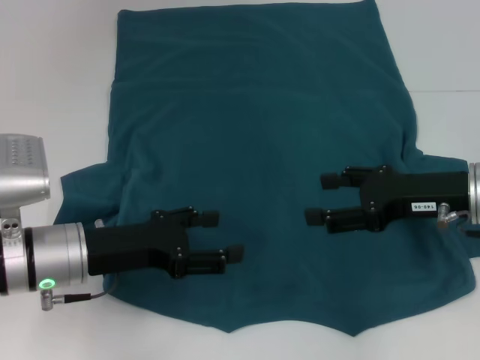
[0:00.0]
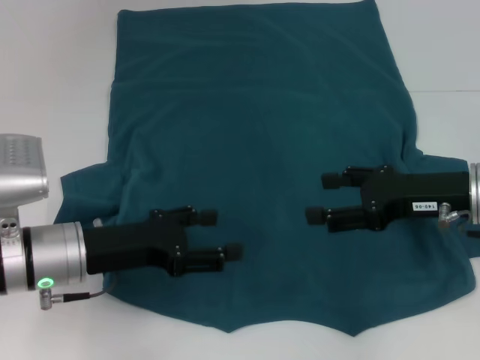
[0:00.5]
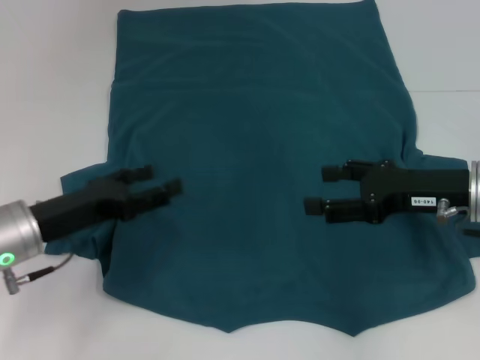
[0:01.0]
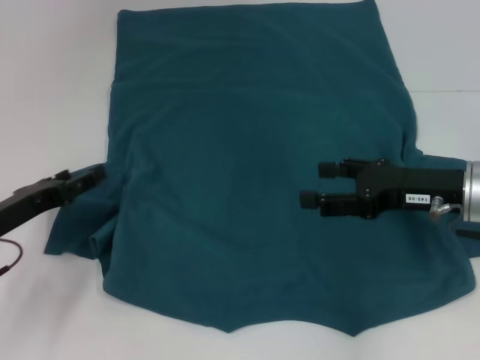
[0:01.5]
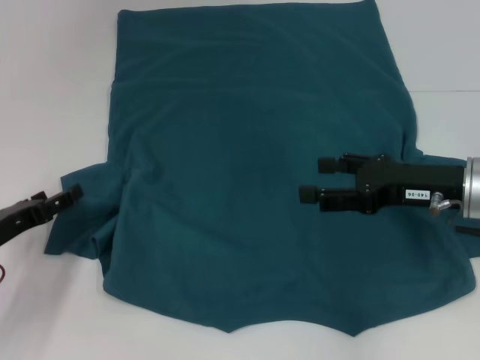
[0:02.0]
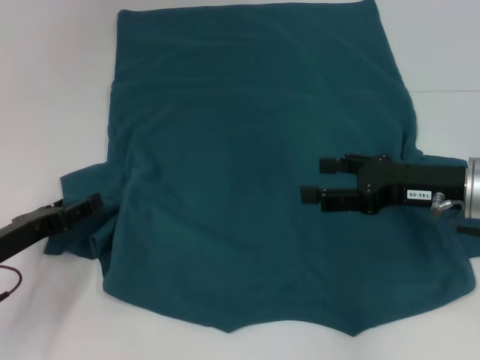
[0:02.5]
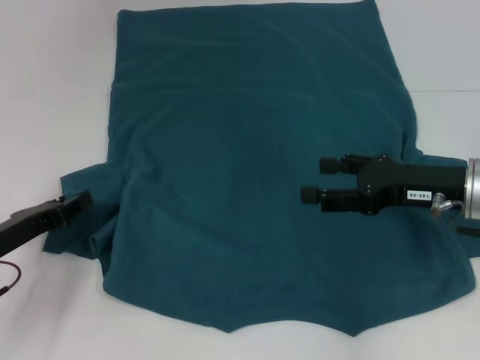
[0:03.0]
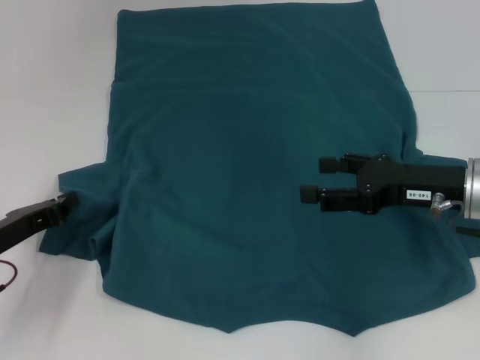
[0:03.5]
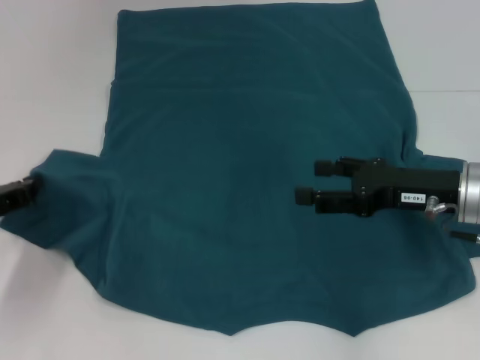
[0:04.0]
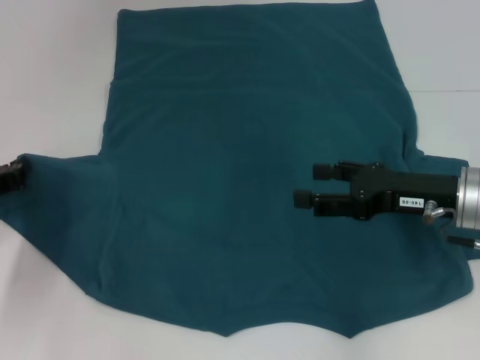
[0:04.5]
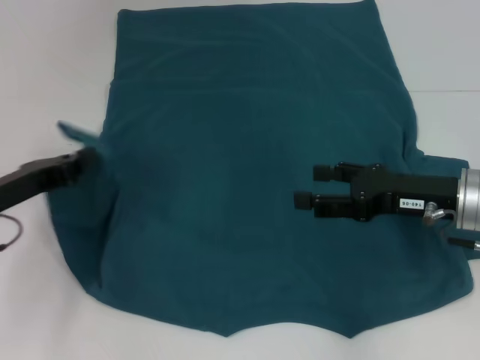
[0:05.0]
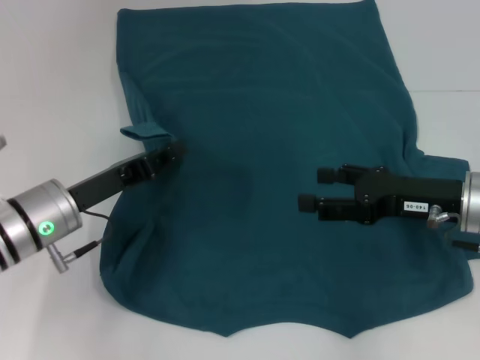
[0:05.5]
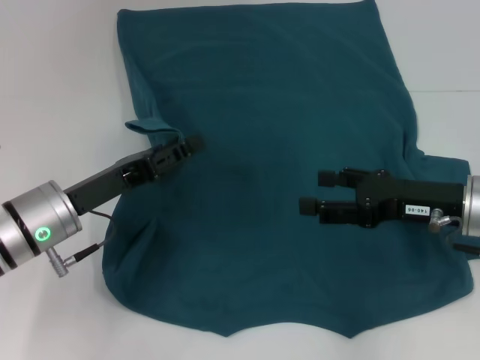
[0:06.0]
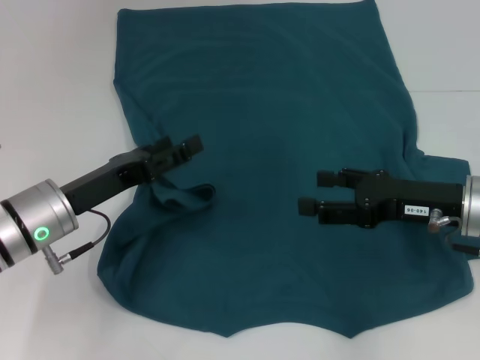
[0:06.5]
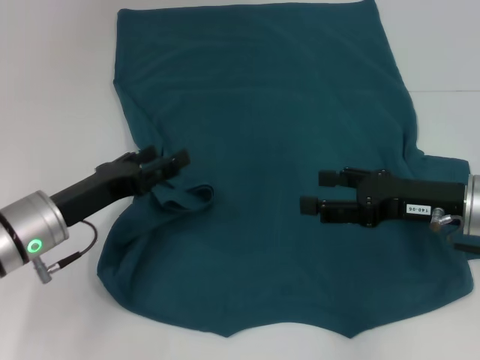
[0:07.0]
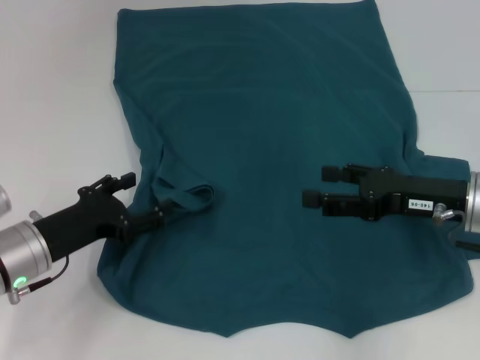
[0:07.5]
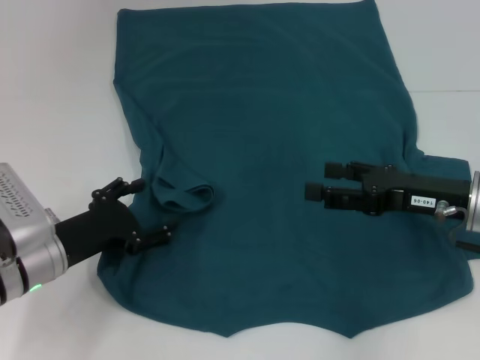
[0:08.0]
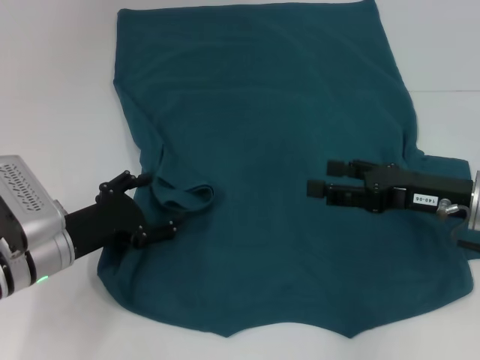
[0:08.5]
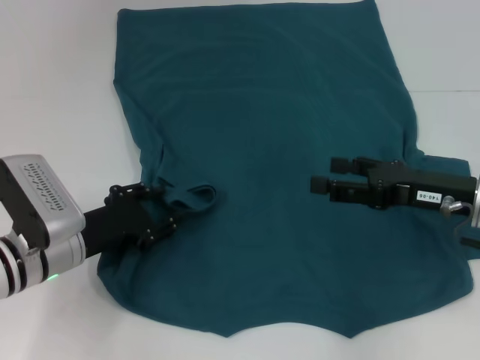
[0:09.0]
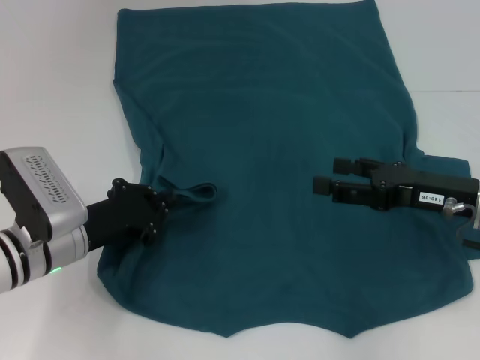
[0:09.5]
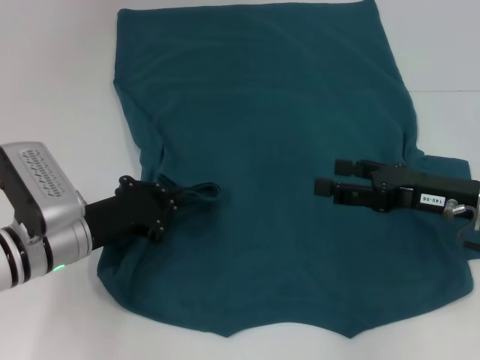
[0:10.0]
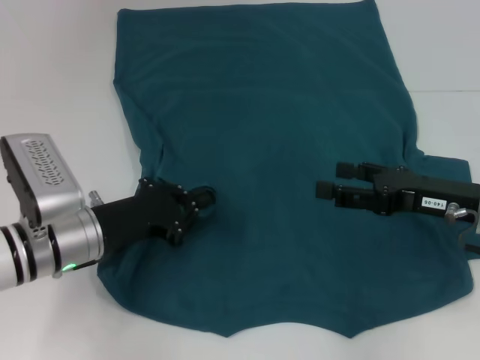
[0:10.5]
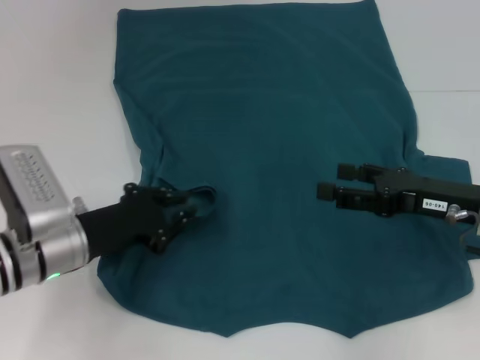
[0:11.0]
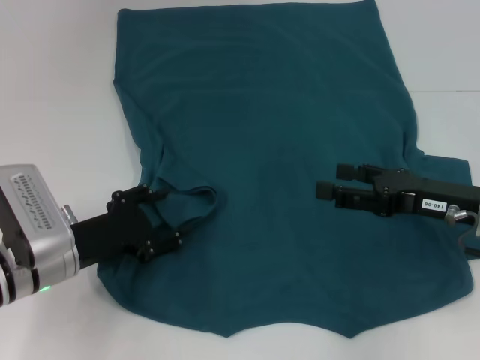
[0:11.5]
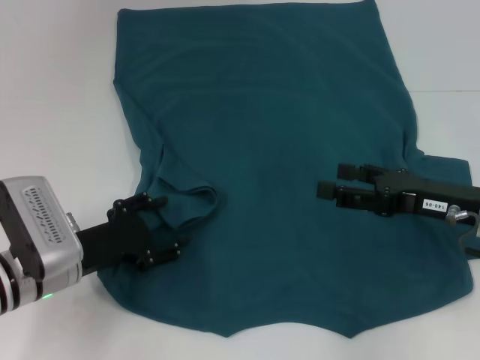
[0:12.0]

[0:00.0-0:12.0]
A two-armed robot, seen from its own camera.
0:00.0 to 0:02.0: The left gripper travels to the left by roughly 10 cm.
0:02.0 to 0:04.0: The left gripper closes its fingers.
0:04.0 to 0:06.0: The left gripper travels to the right by approximately 10 cm, and opens up.
0:06.0 to 0:08.0: The left gripper opens its fingers.
0:08.0 to 0:10.0: The left gripper closes.
0:10.0 to 0:12.0: The left gripper opens its fingers.

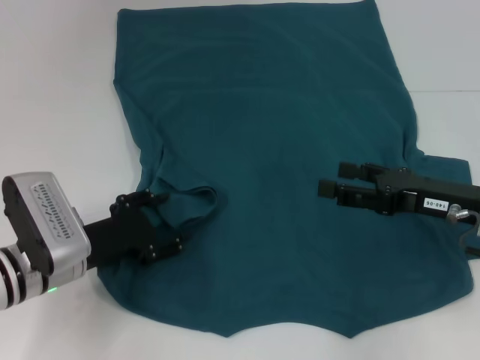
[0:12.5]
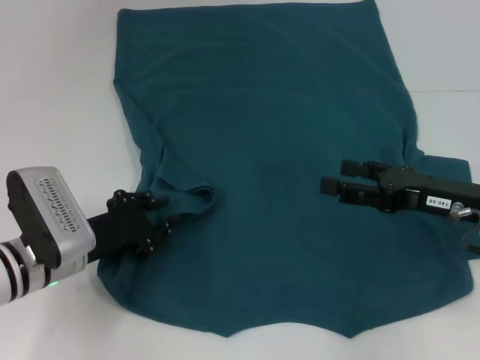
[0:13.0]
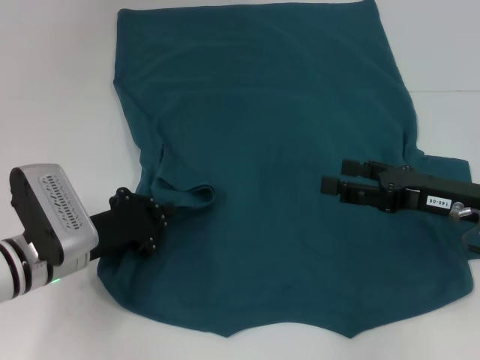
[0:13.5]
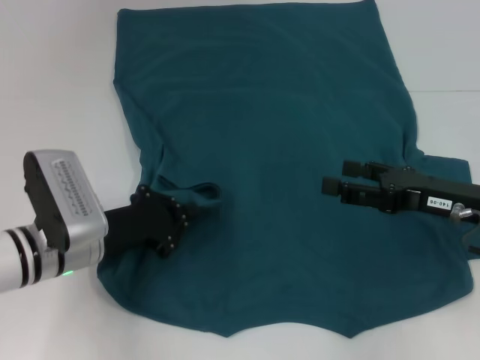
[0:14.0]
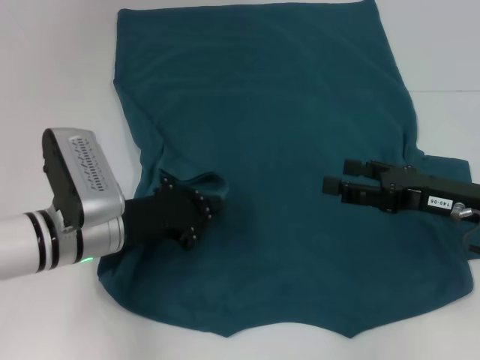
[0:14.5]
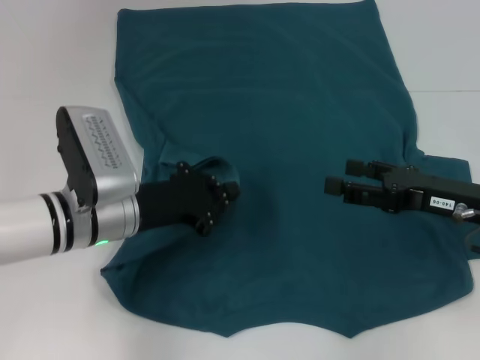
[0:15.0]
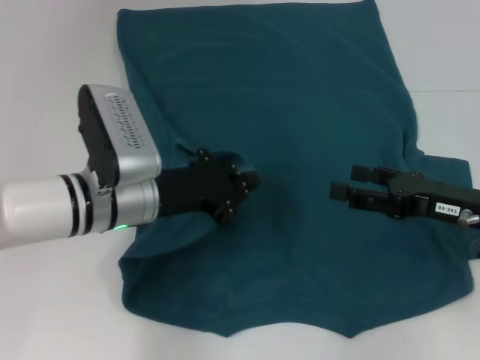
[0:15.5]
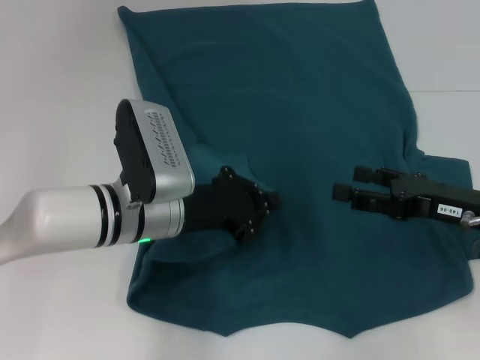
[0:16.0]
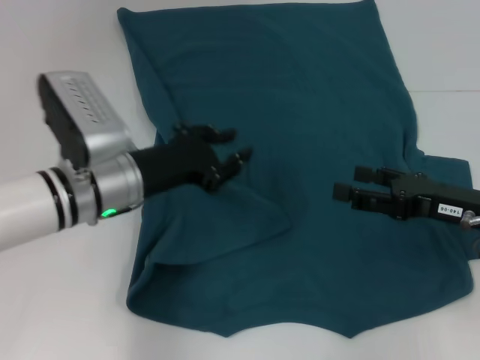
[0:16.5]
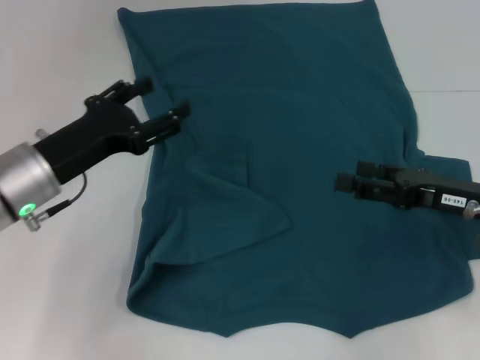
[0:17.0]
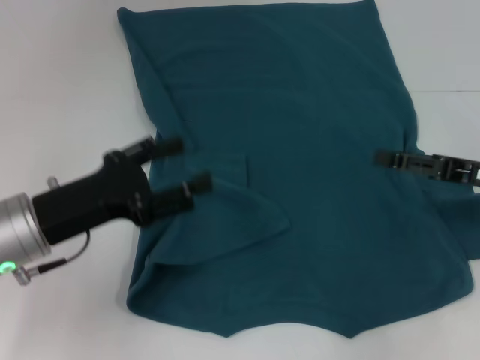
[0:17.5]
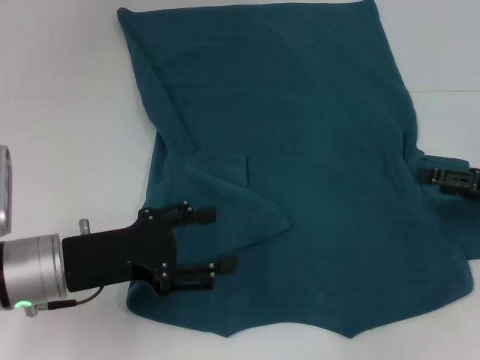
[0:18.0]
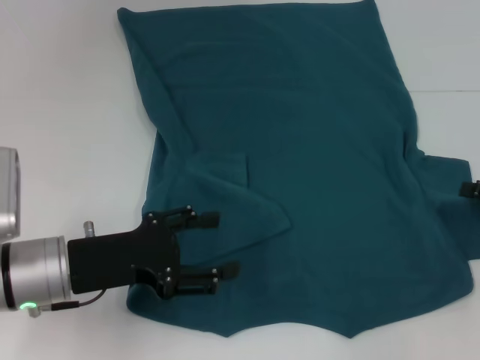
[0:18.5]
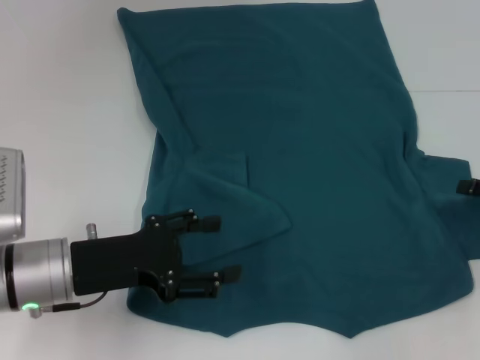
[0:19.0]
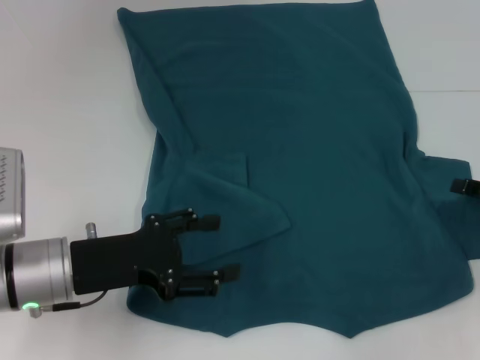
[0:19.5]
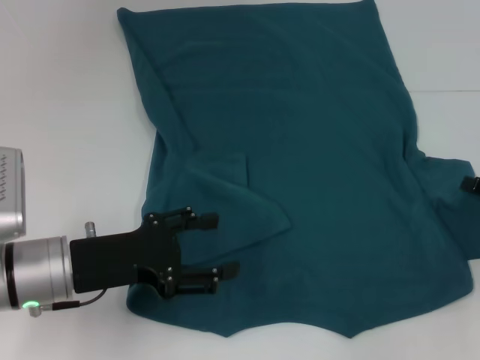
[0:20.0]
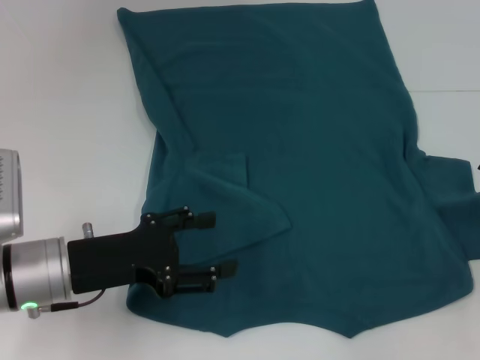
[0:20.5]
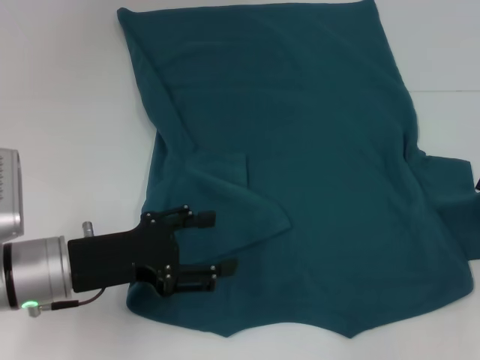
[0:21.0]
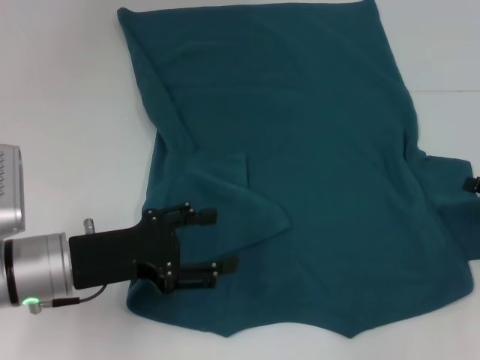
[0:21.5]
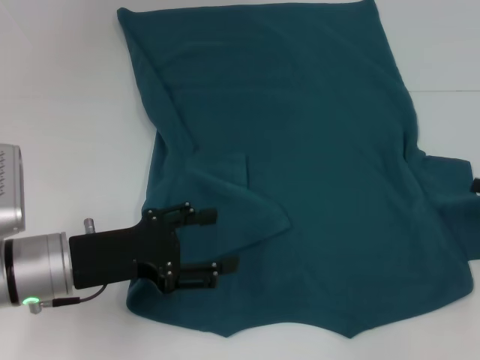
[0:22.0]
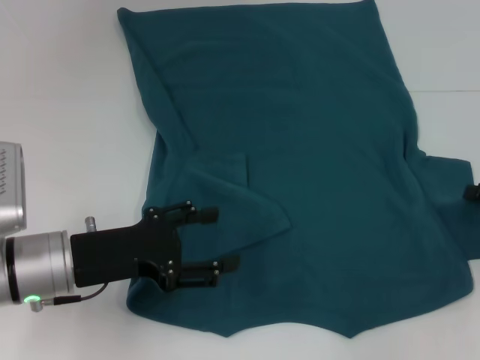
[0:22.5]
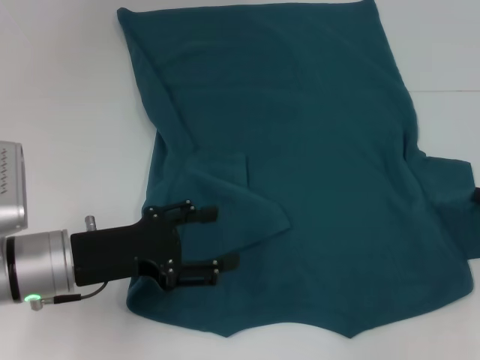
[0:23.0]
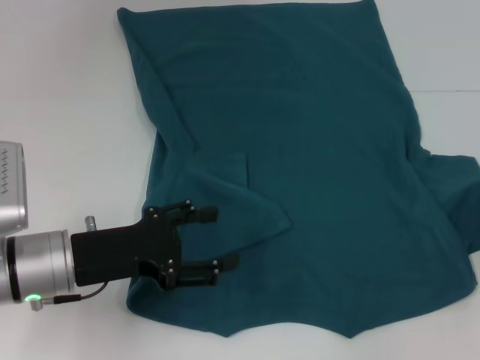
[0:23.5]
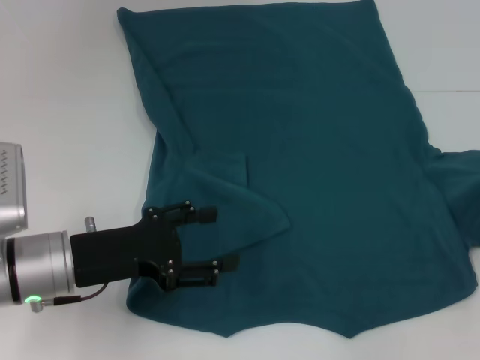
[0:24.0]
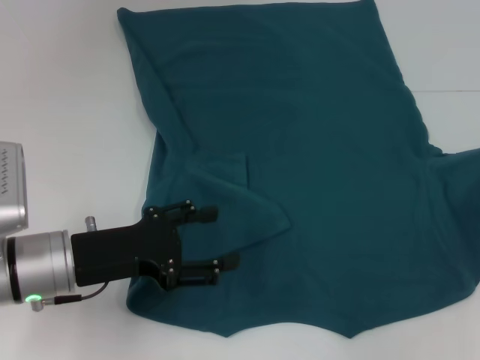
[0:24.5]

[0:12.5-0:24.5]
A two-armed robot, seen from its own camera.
Step, 0:12.5 to 0:16.0: Fold the bottom left sleeve with your left hand.
0:12.5 to 0:14.5: The left gripper changes place by about 5 cm, and closes.
0:16.5 to 0:18.5: The left gripper is displaced backward and to the left by approximately 10 cm, and opens its fingers, while the right gripper travels to the right by approximately 10 cm.
0:22.5 to 0:24.5: The right gripper closes its fingers.

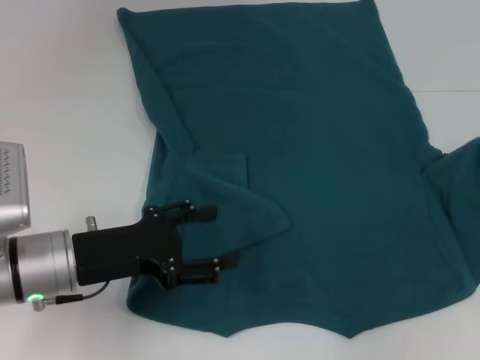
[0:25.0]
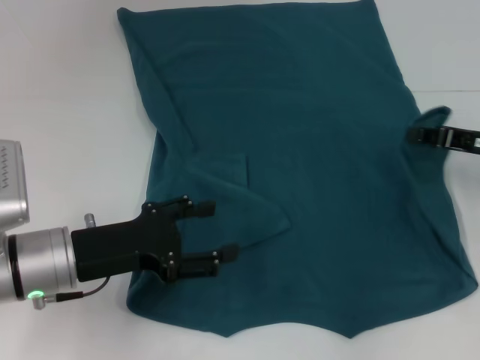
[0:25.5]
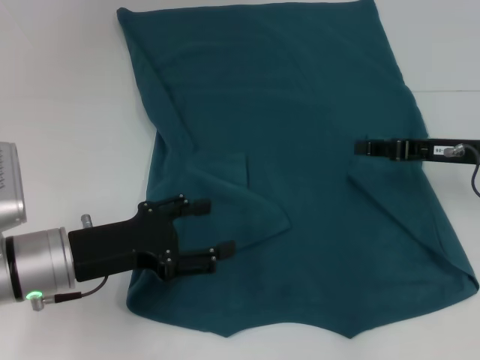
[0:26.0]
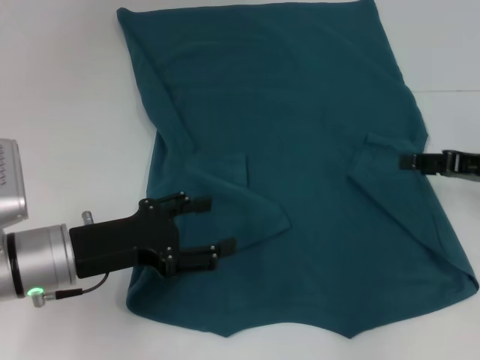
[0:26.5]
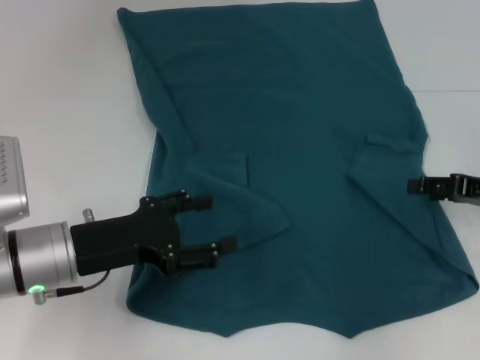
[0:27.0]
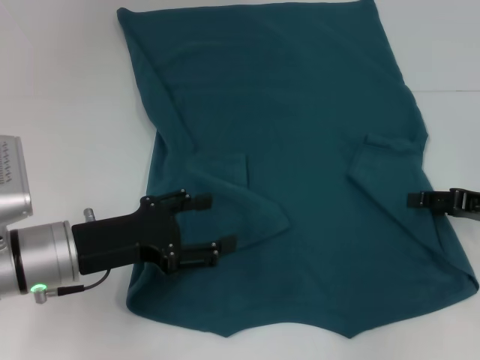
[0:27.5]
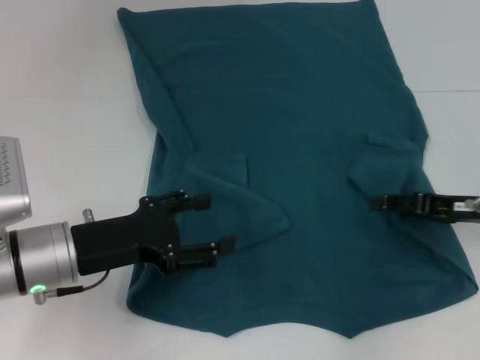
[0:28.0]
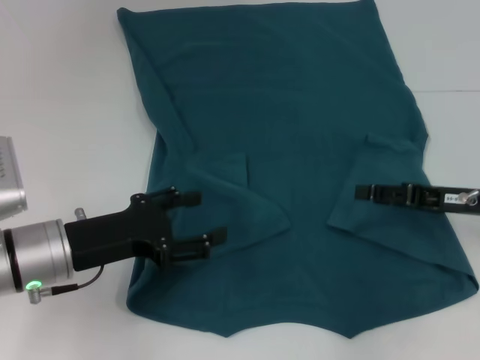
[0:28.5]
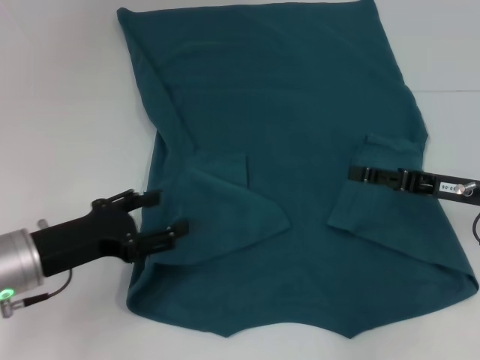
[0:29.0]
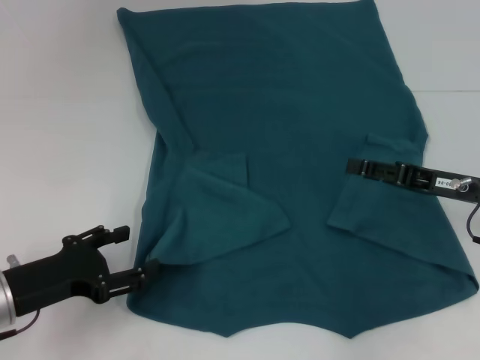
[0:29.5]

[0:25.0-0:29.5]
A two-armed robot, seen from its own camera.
Step, 0:25.0 to 0:28.0: Fold the bottom right sleeve to the right.
0:25.0 to 0:27.0: The right gripper opens.
0:27.0 to 0:29.5: Both grippers travel together to the left, roughly 5 cm.
